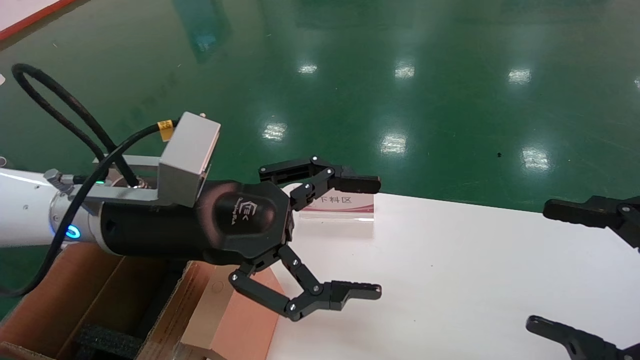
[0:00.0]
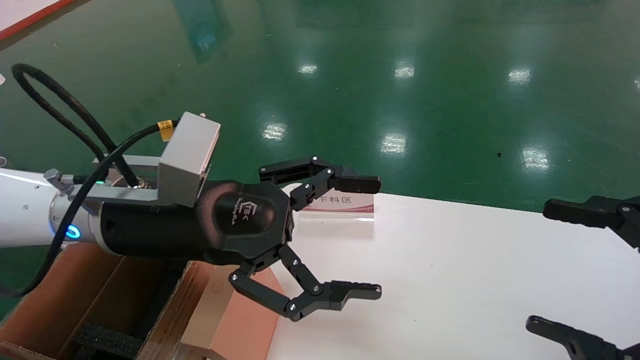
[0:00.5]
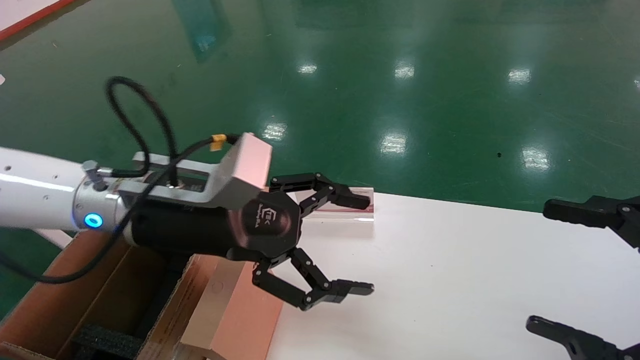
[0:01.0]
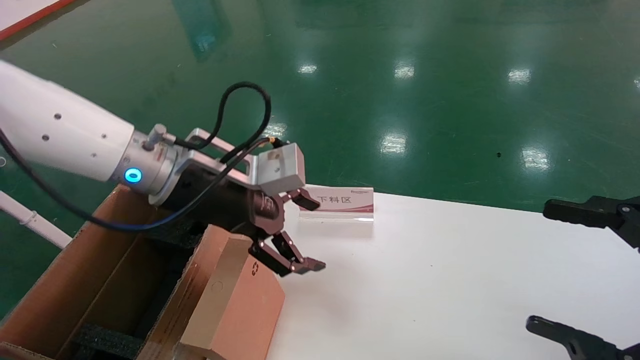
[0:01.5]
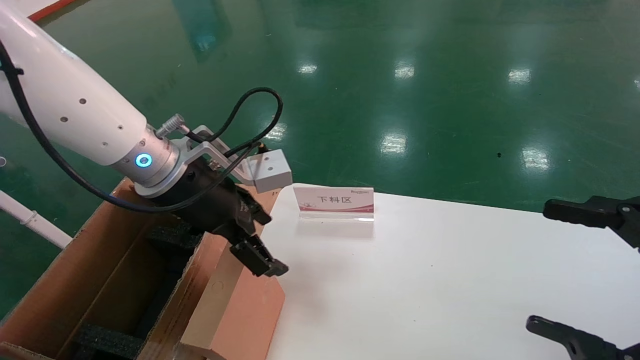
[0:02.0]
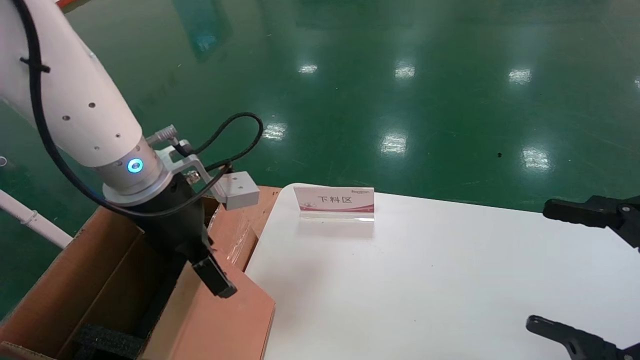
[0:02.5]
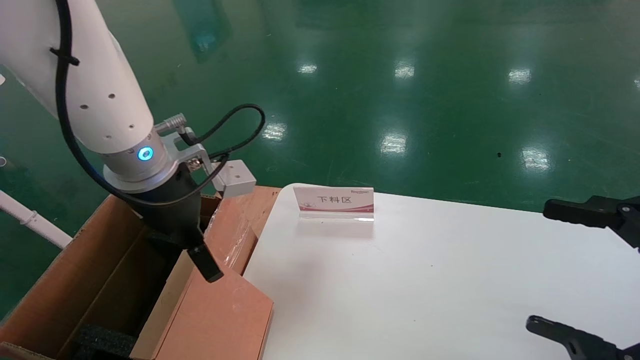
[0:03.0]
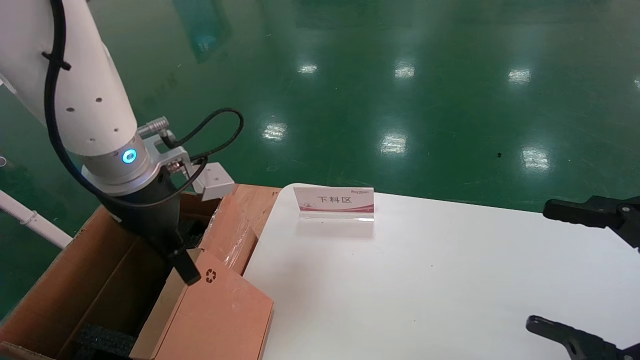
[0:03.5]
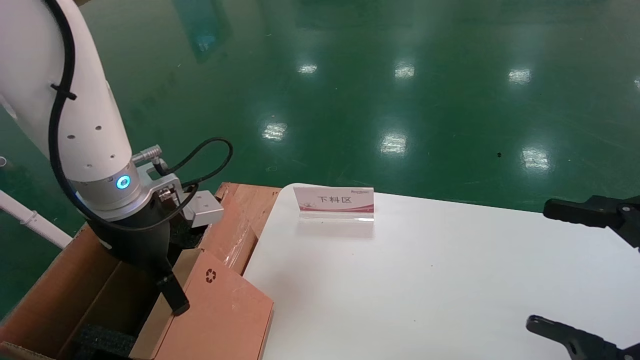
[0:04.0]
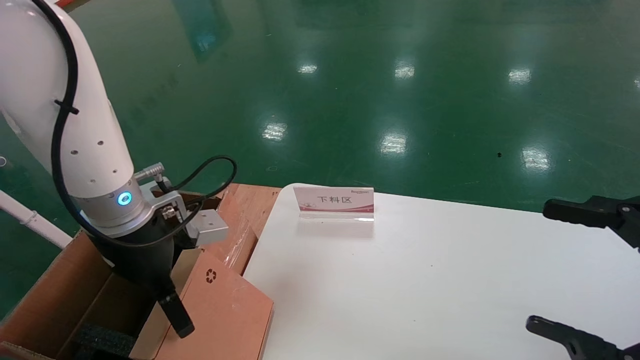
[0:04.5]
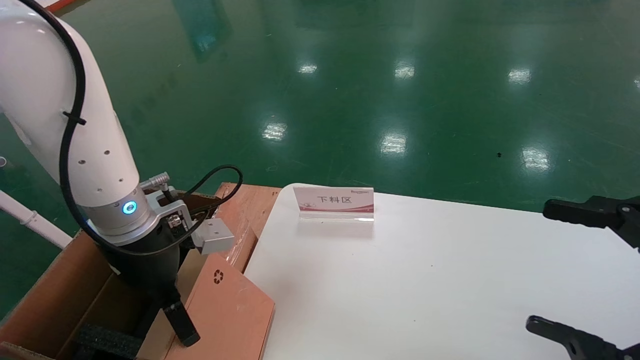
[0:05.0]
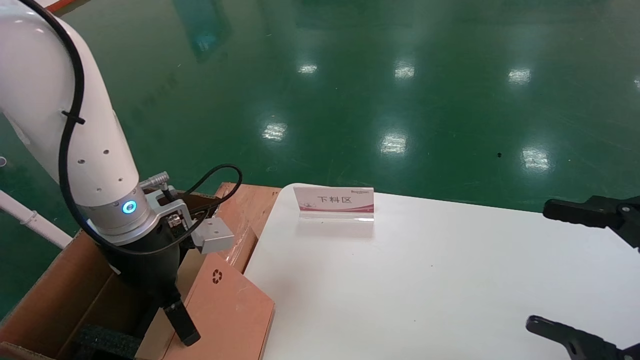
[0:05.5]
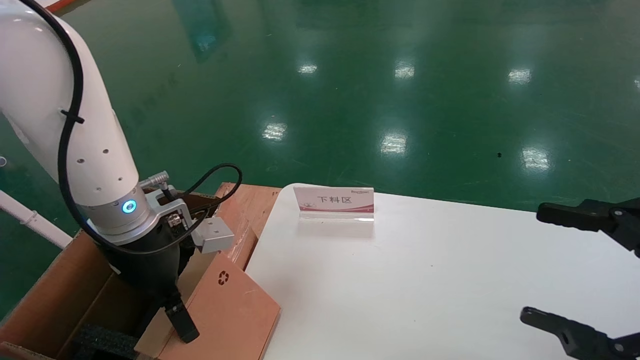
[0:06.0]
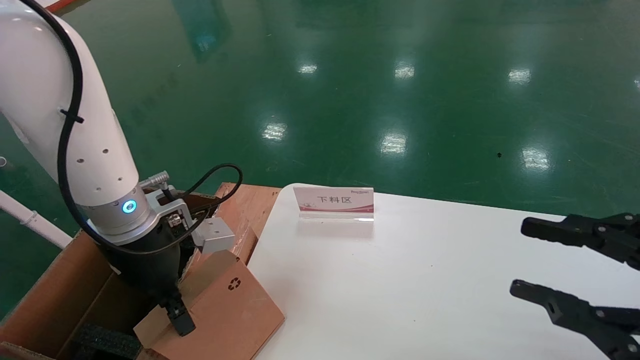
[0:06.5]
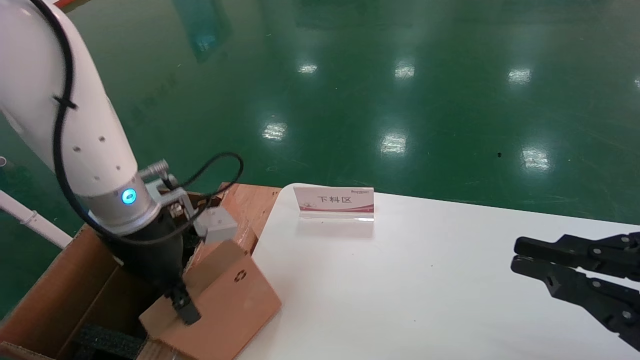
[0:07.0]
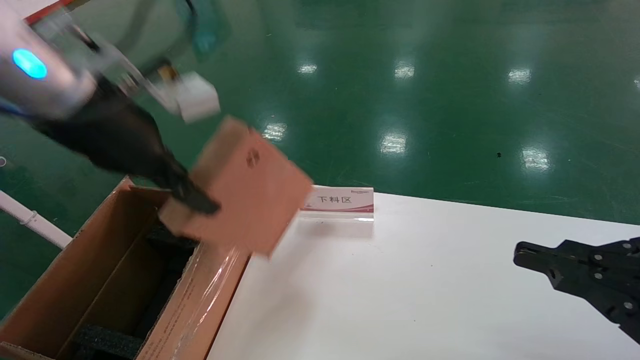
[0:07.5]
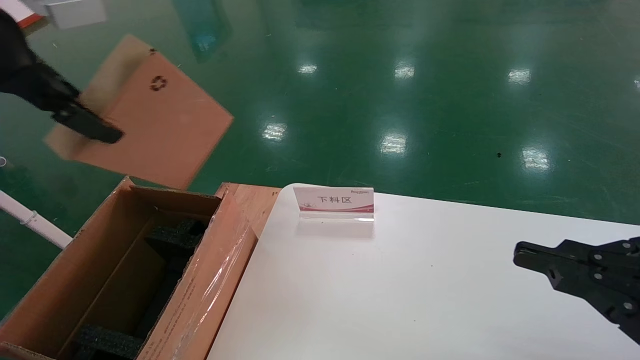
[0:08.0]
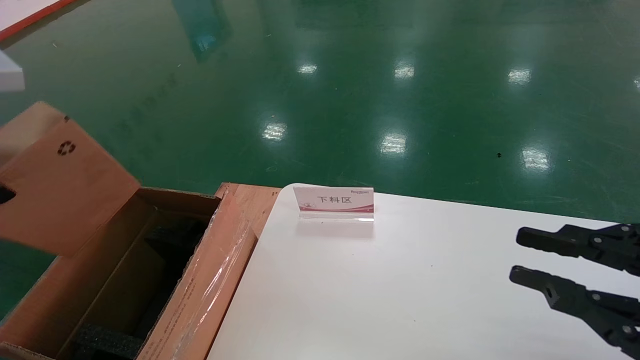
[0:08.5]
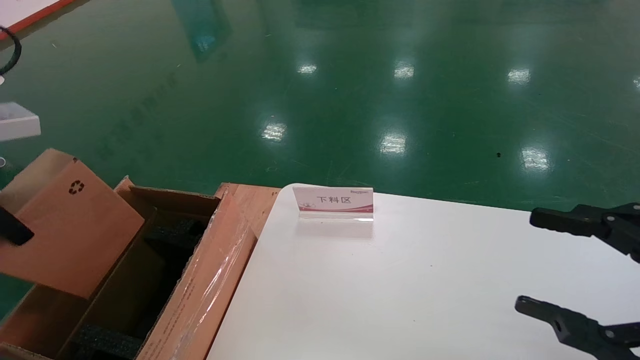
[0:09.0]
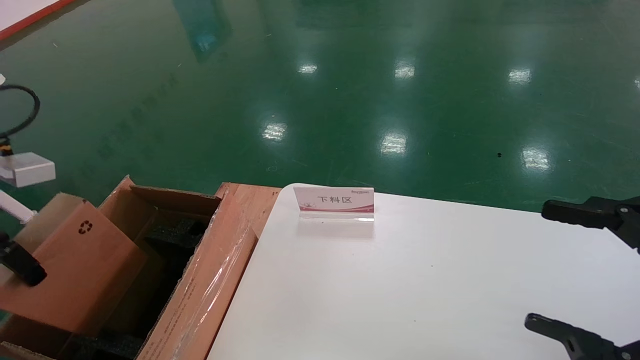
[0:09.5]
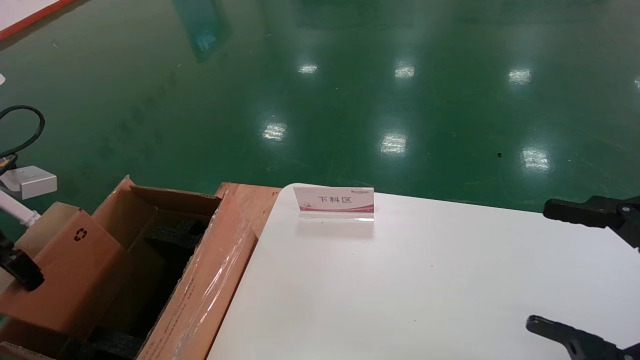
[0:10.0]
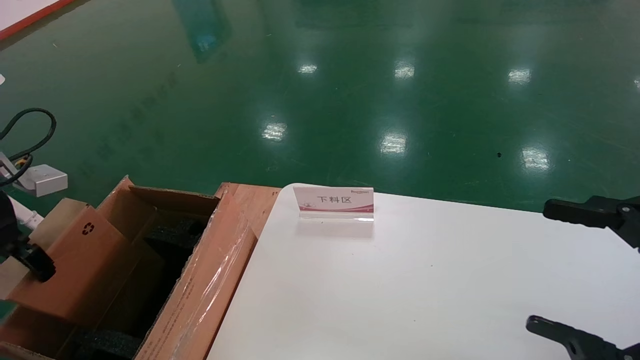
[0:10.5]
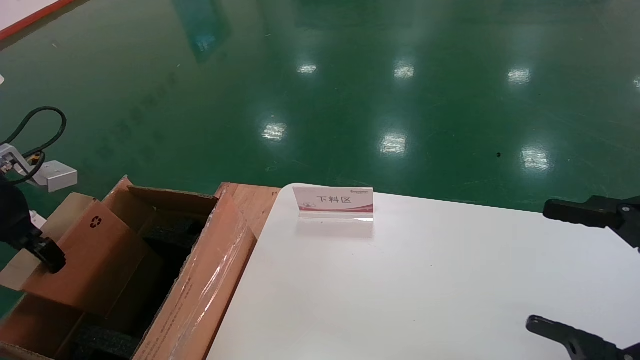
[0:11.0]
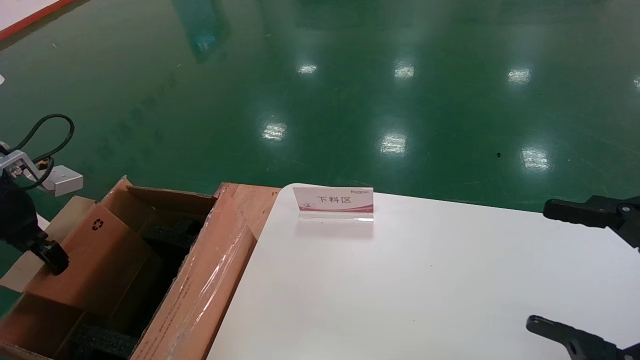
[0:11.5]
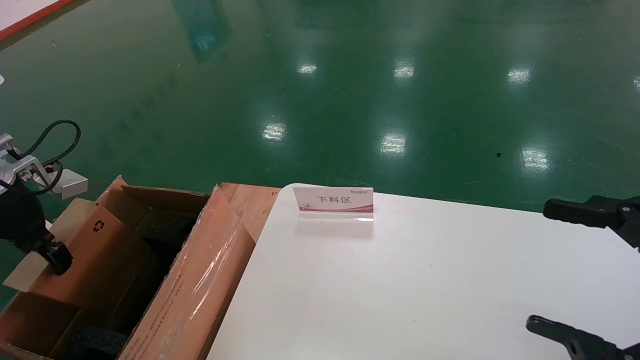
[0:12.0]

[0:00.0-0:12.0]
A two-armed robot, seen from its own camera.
Task of the whole recording: pick up the small cardboard box and load it into the large cardboard box.
Step, 0:01.5 to 0:06.0: Pick up the mouse and power cord box.
0:00.0 to 0:02.0: The left gripper shifts approximately 5 cm forward.
0:02.0 to 0:04.0: The left gripper changes place by some 5 cm.
0:04.0 to 0:06.0: There are only small adjustments of the grippers.
0:06.0 to 0:08.0: The right gripper closes up. Meanwhile the left gripper travels upward by about 20 cm, and closes up.
0:08.0 to 0:10.0: The right gripper opens its fingers. The left gripper moves downward and to the left, approximately 20 cm.
0:10.0 to 0:12.0: The left gripper travels forward by about 5 cm.

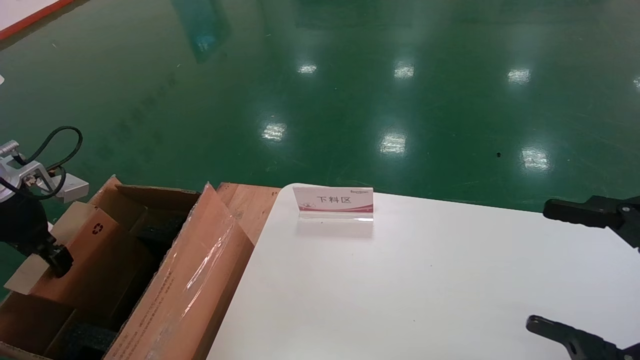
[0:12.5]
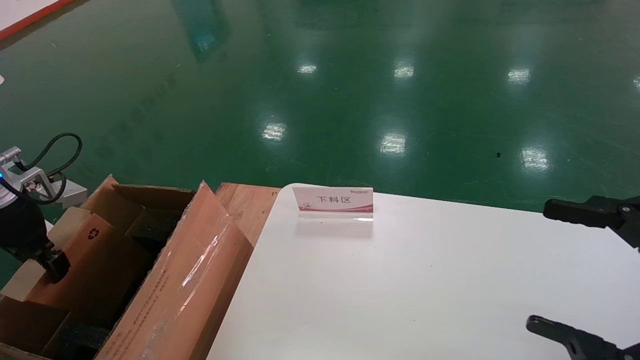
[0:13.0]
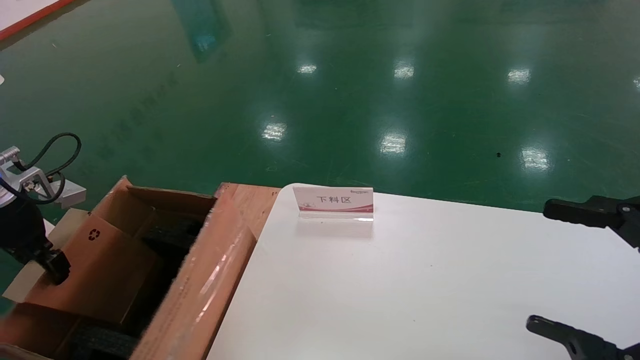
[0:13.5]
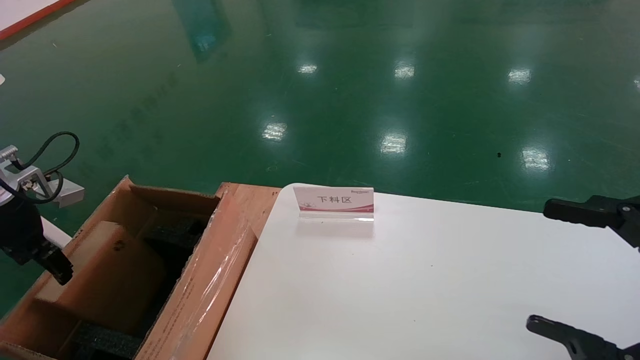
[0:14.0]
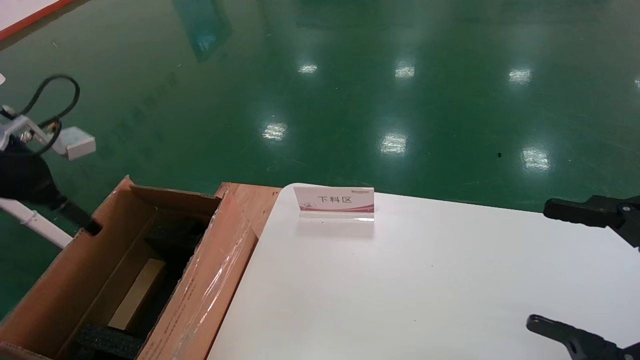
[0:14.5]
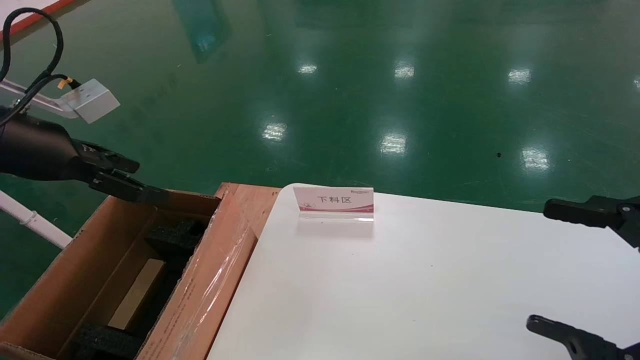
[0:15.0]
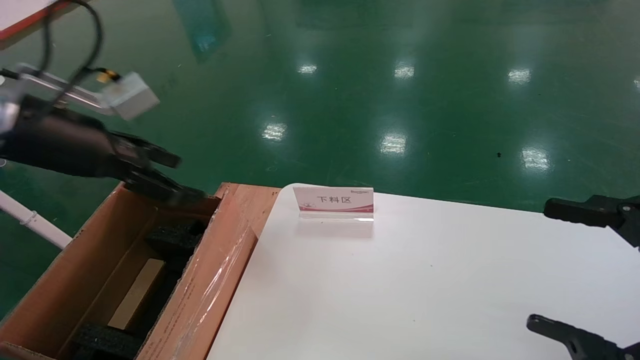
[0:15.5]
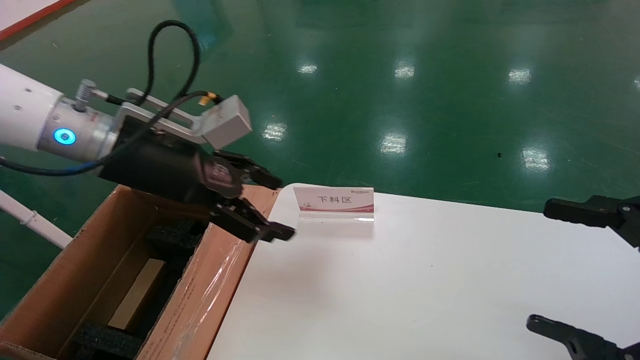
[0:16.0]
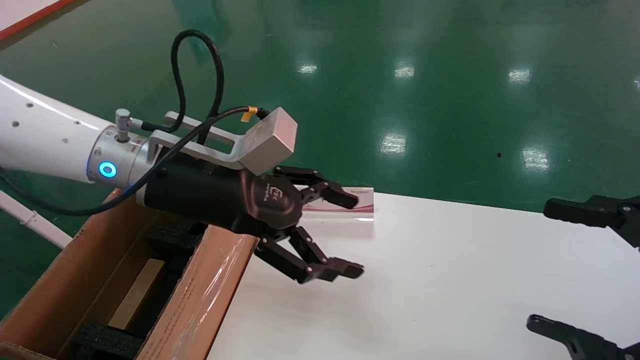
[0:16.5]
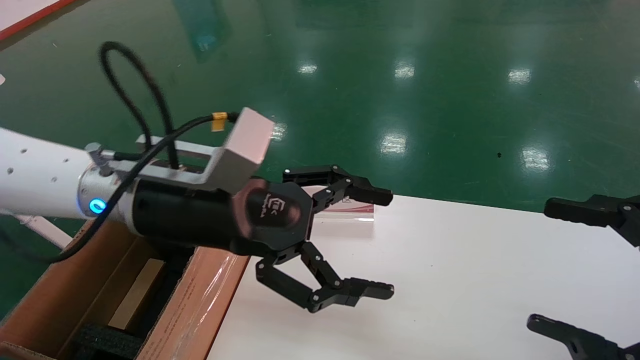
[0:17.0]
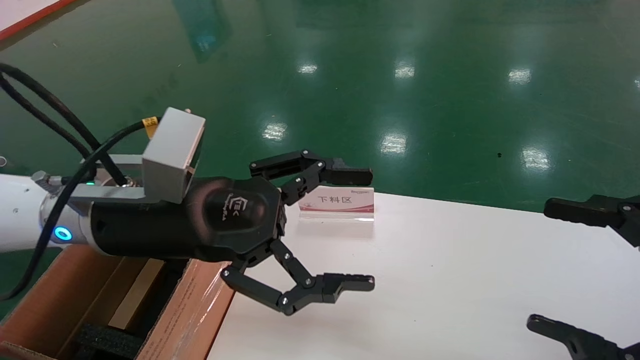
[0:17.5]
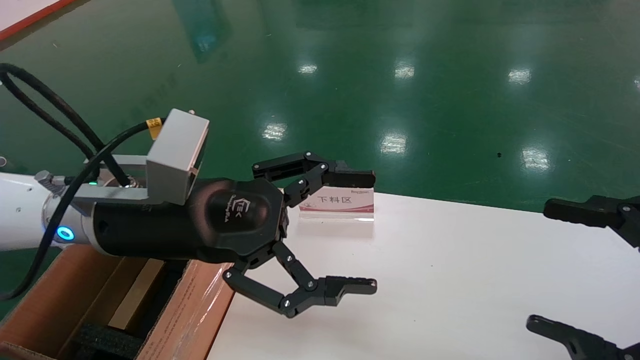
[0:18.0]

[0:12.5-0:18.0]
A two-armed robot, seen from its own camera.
Task of the whole recording: pick up the small cardboard box and load it into the large cardboard box.
0:12.5 to 0:14.5: The left gripper heads upward, covering some 5 cm, and opens.
0:14.5 to 0:16.0: The left gripper moves to the right, some 20 cm.
0:16.0 to 0:18.0: The left gripper travels backward by about 5 cm.

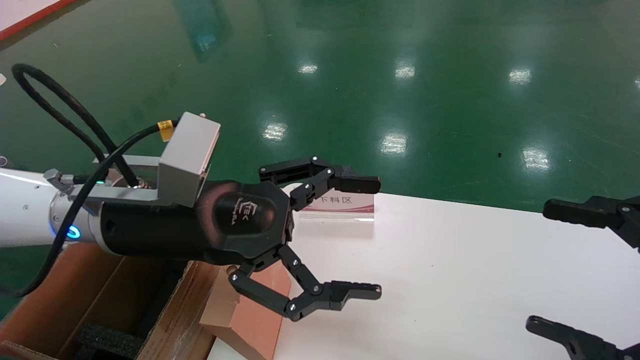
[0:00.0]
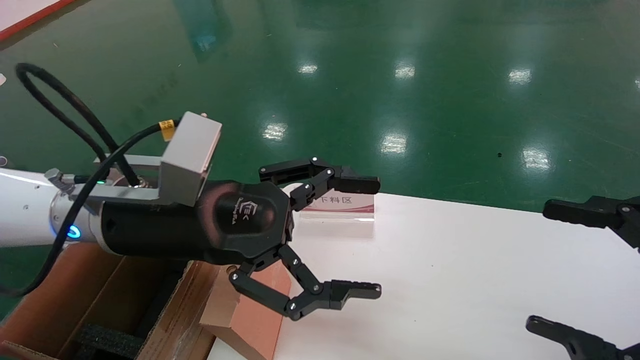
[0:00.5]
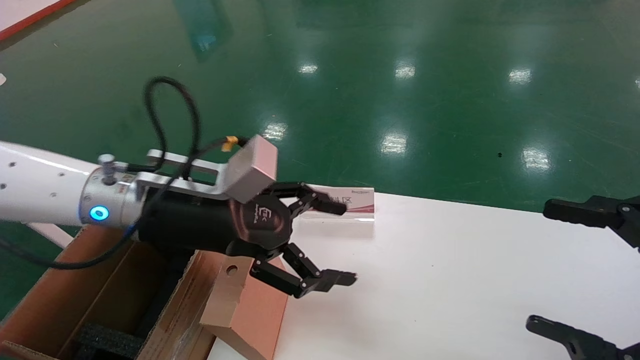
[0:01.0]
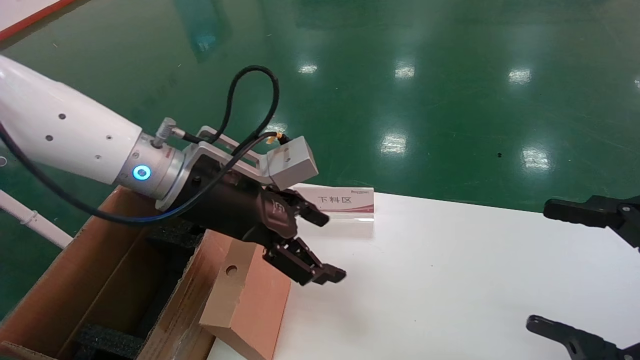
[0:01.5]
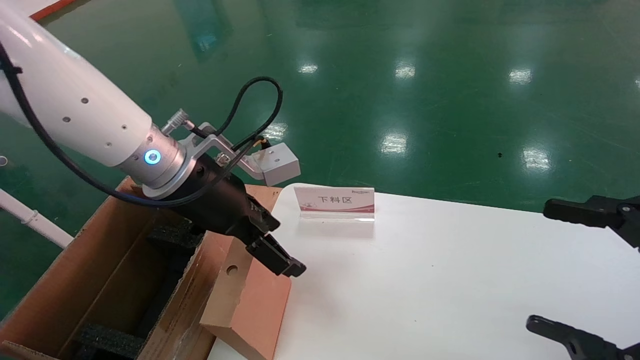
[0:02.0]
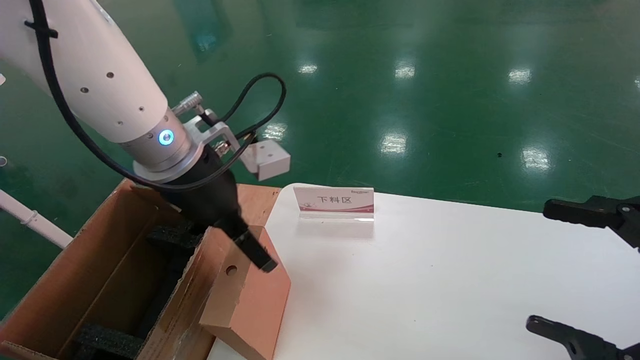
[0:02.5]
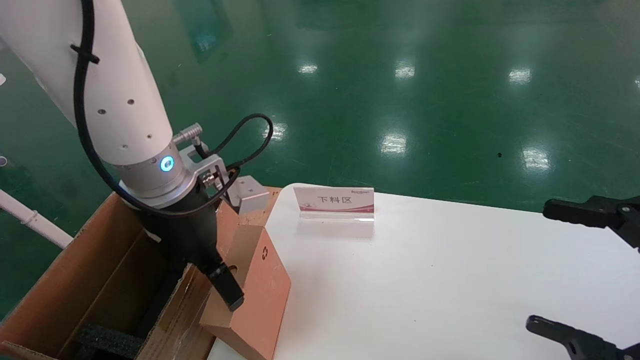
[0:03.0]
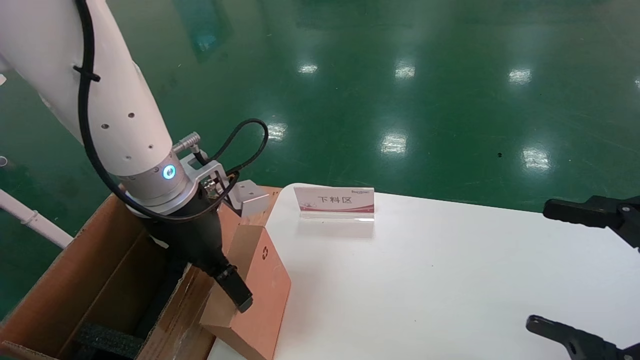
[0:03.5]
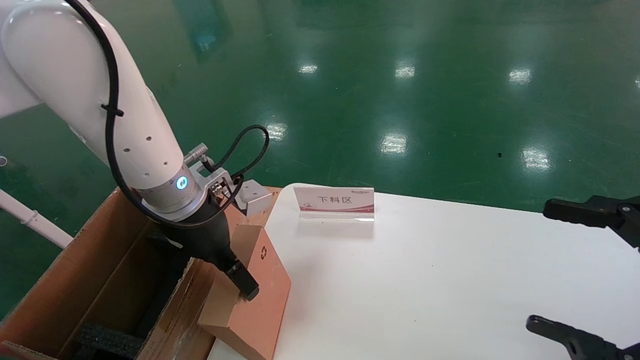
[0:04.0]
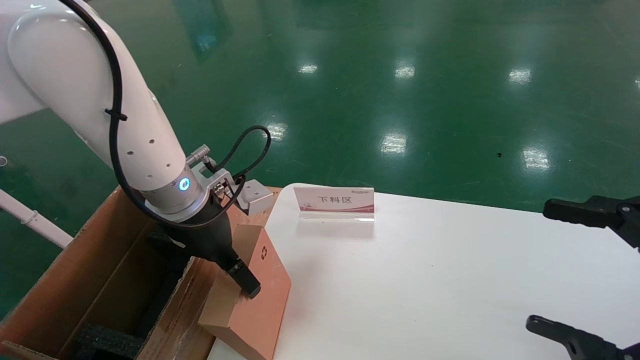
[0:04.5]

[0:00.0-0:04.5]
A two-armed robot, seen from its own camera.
Task of the whole recording: pick up the small cardboard box and load it into the large cardboard box.
0:00.0 to 0:02.0: The left gripper shifts approximately 5 cm forward.
